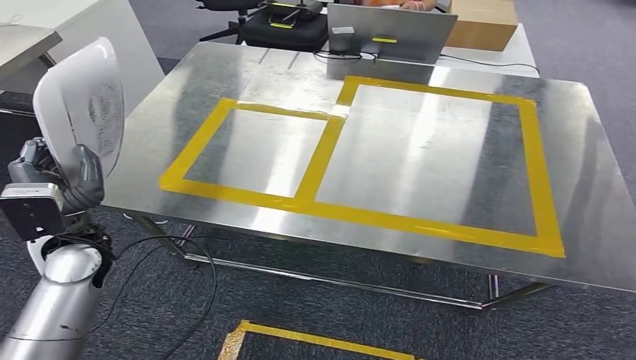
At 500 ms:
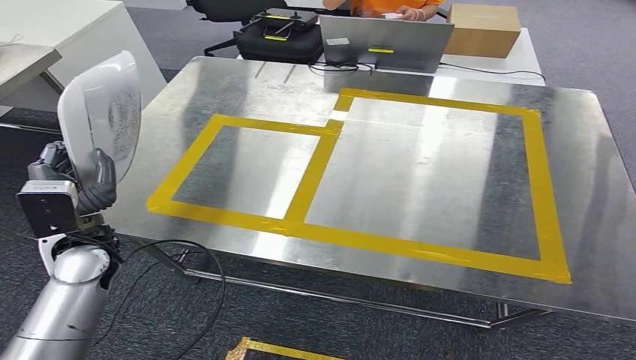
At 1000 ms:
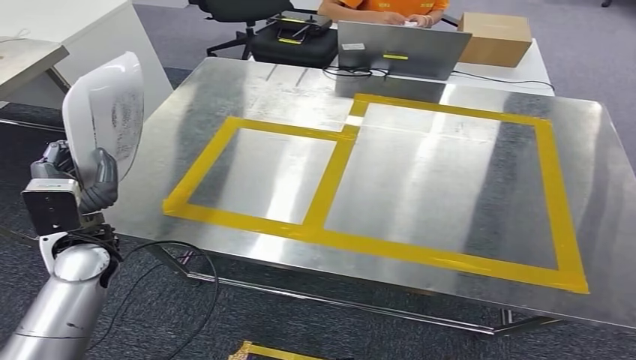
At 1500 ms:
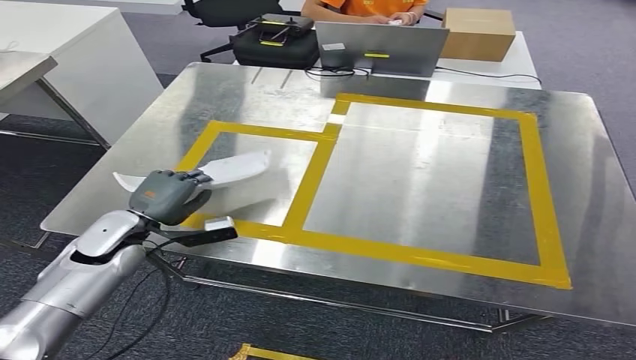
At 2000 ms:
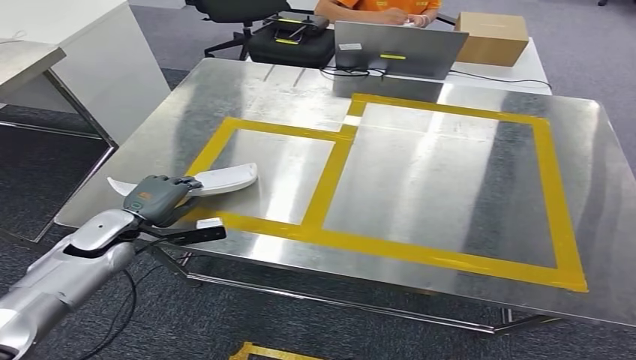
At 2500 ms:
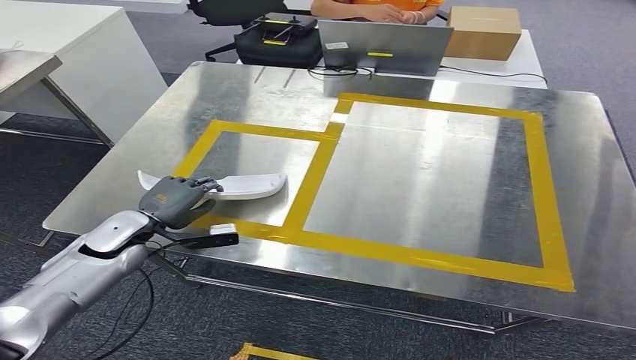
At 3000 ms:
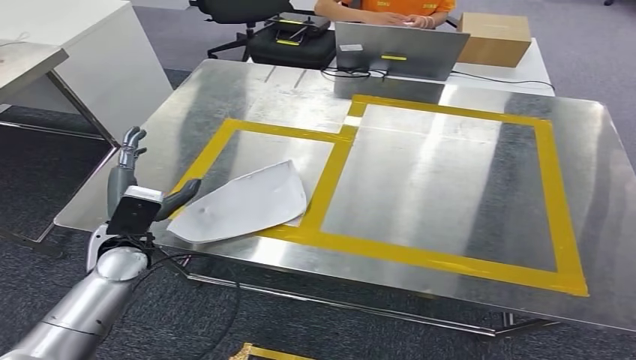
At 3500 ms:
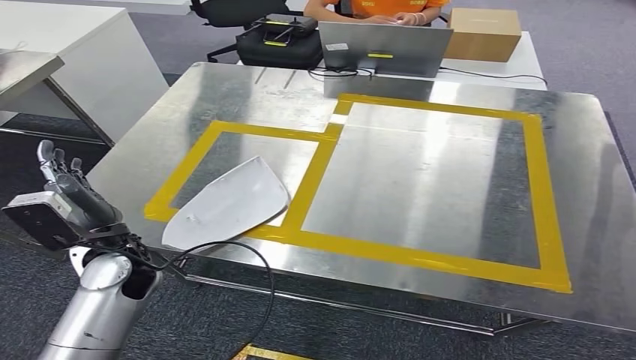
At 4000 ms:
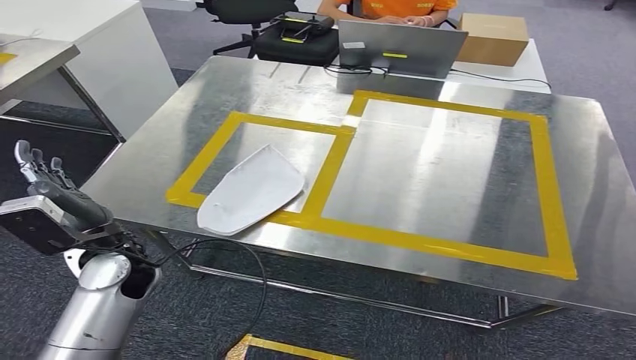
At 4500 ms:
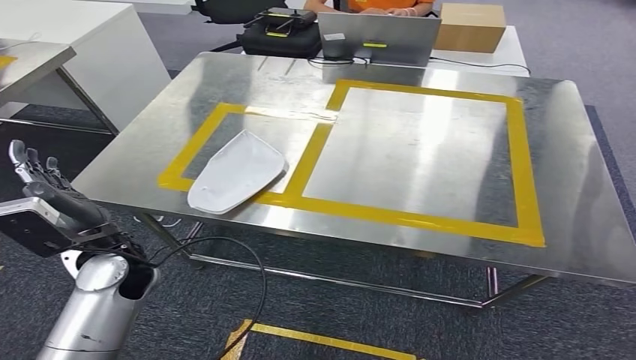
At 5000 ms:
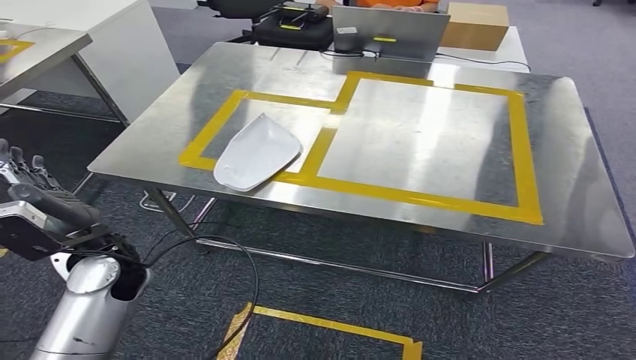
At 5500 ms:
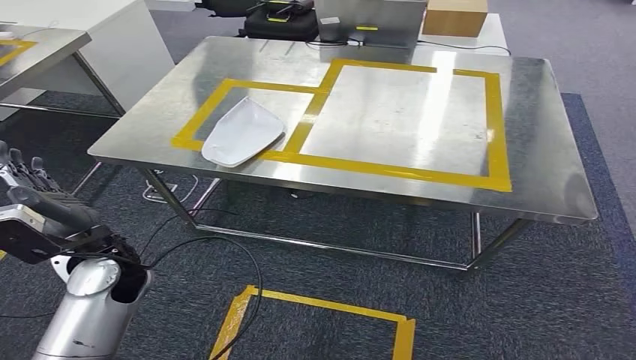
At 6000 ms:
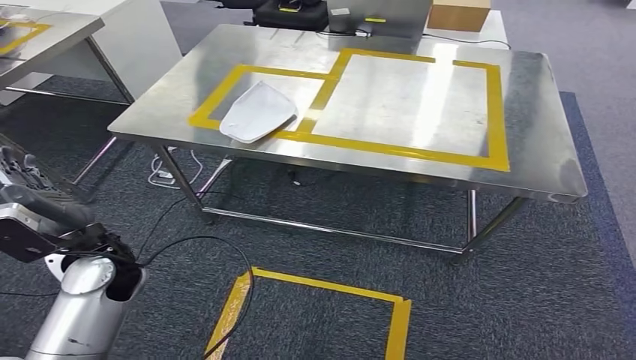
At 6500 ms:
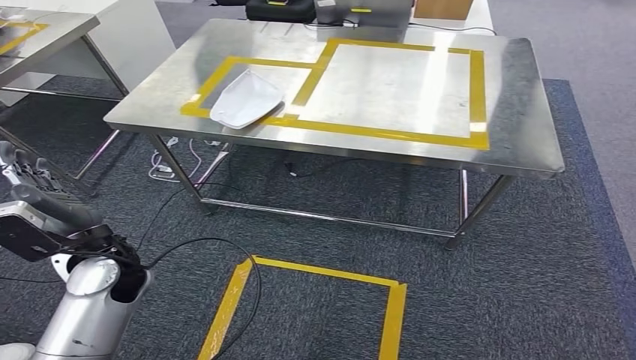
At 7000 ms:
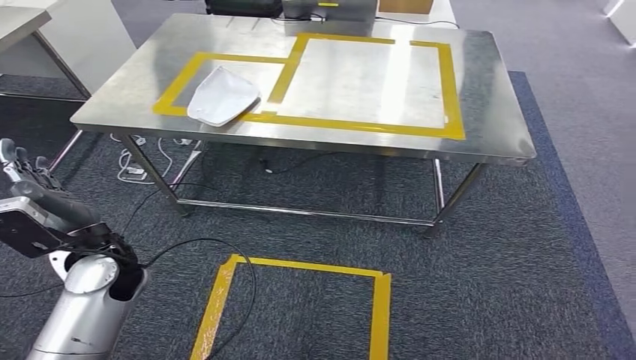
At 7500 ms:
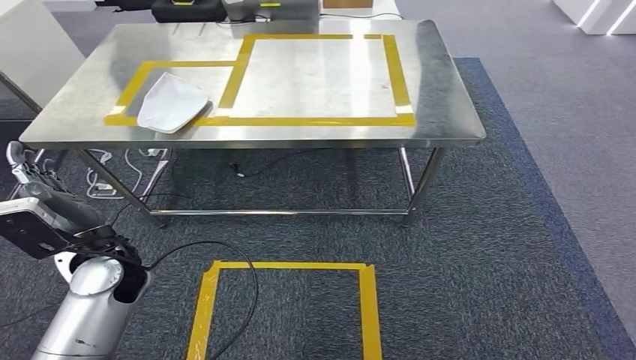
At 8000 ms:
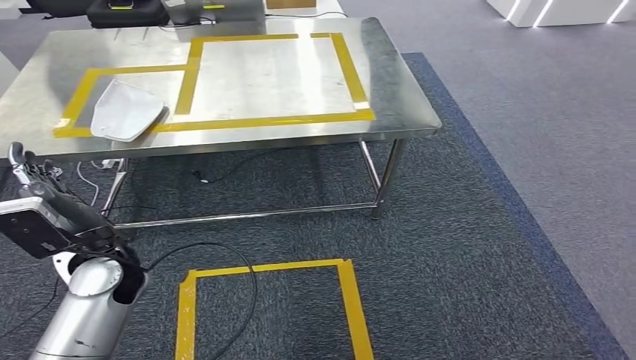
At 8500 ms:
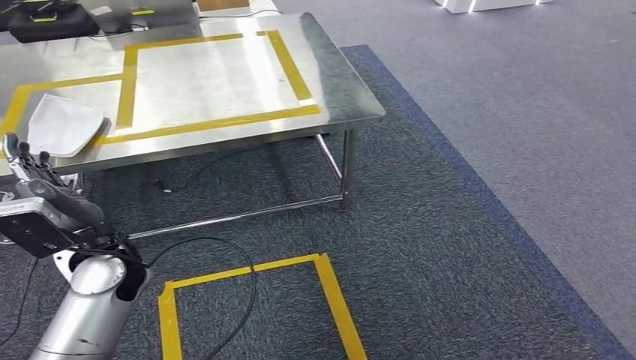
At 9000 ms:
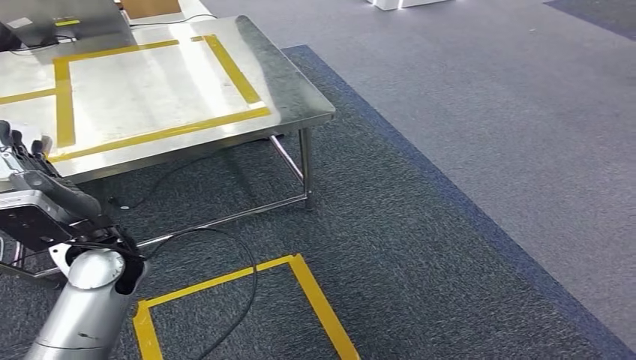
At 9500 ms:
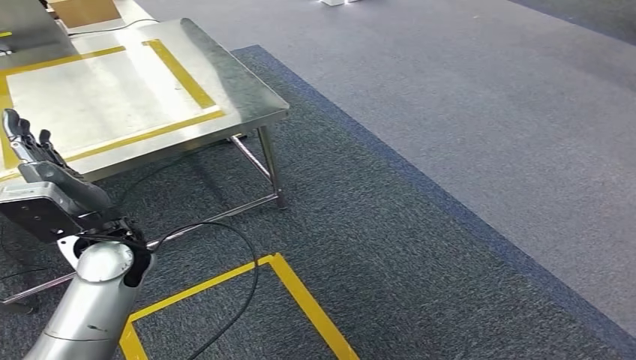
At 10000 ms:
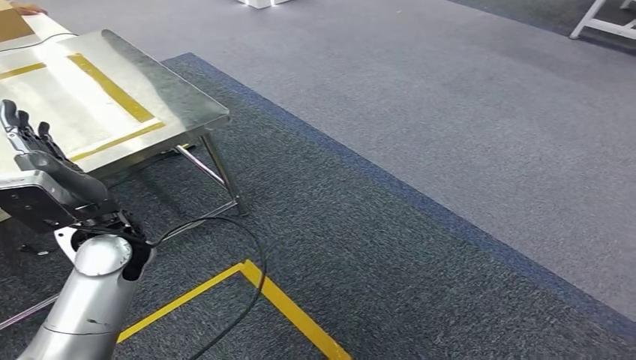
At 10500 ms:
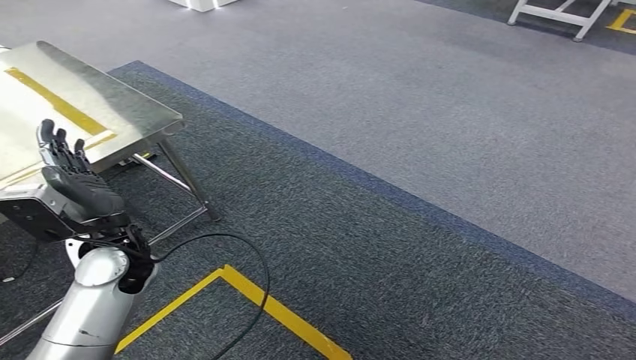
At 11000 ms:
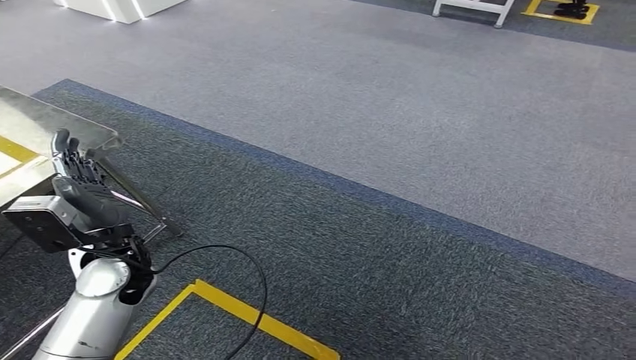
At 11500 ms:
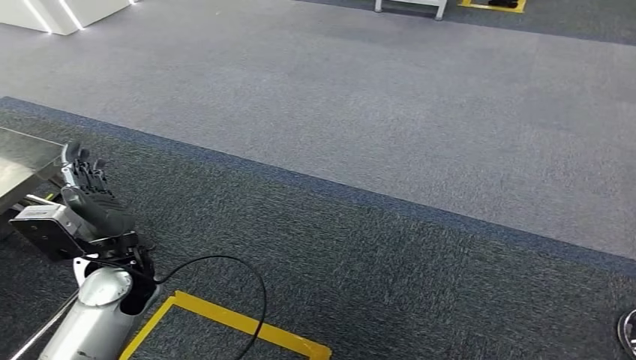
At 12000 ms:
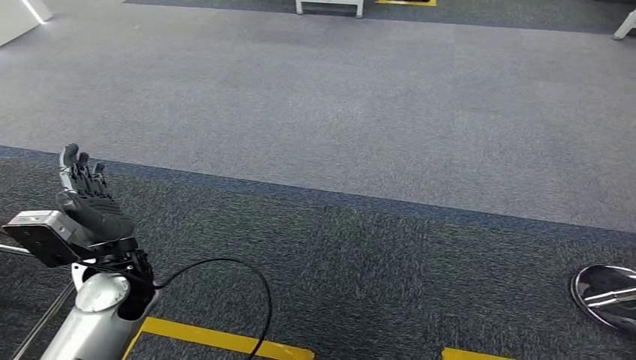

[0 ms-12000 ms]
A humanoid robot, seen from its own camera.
Step, 0 ms to 6000 ms: Insert the small component into the corresponding slot on the workbench.

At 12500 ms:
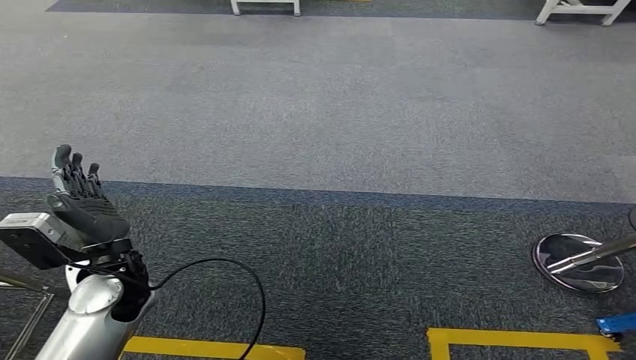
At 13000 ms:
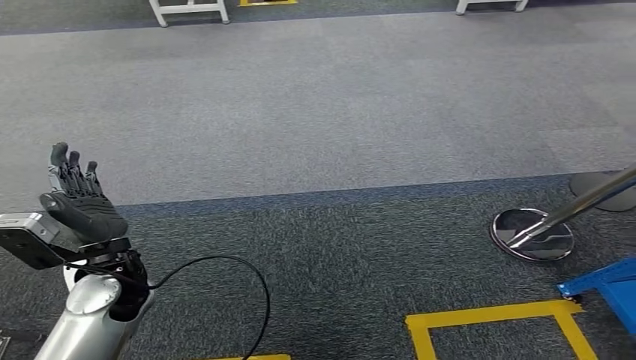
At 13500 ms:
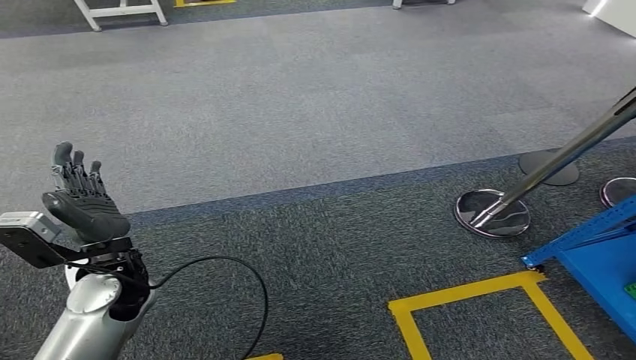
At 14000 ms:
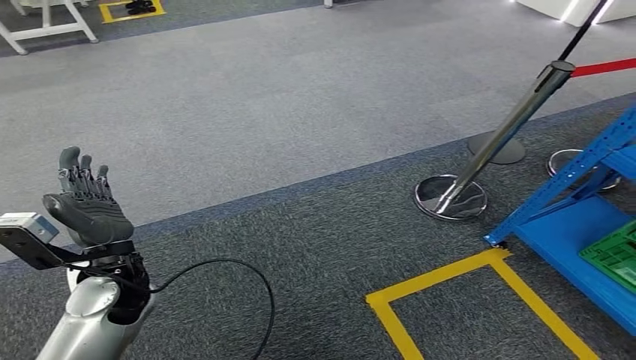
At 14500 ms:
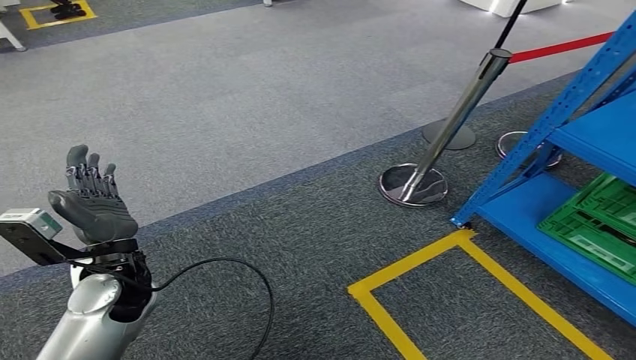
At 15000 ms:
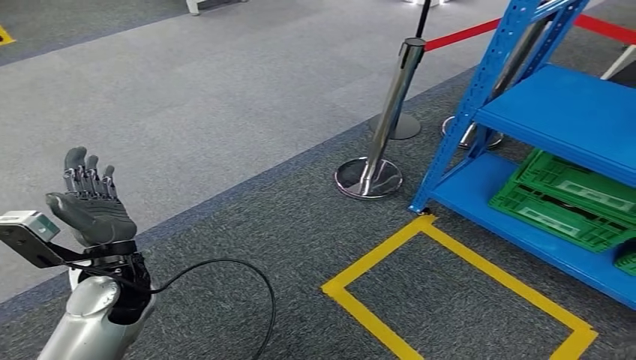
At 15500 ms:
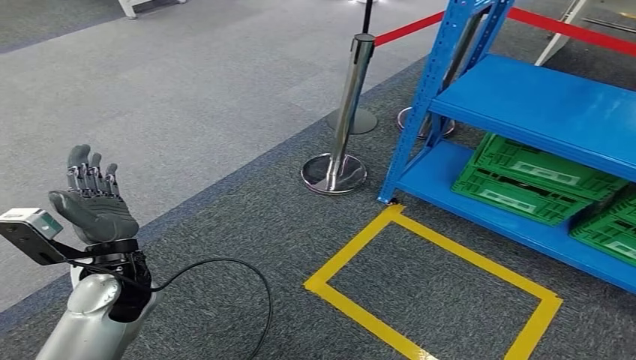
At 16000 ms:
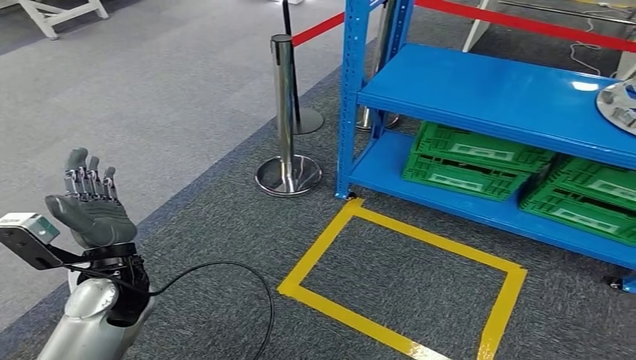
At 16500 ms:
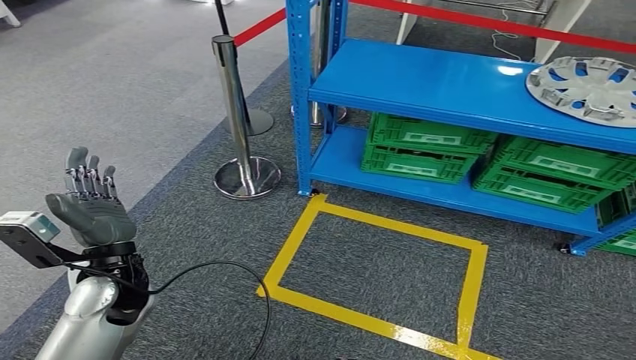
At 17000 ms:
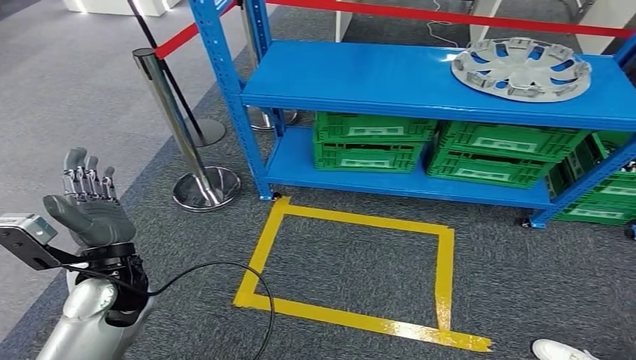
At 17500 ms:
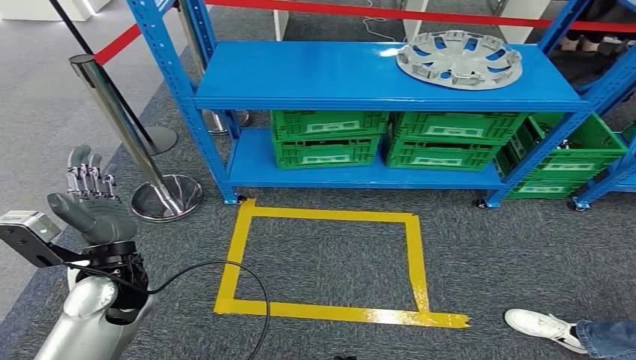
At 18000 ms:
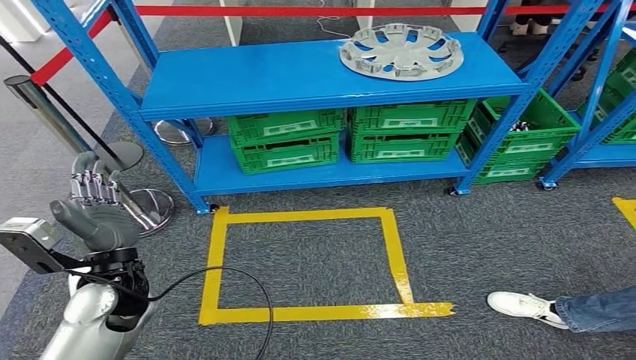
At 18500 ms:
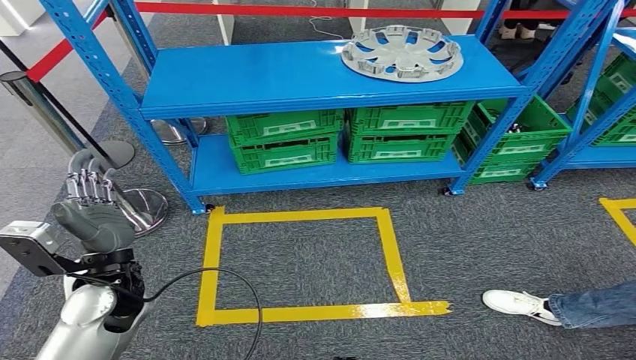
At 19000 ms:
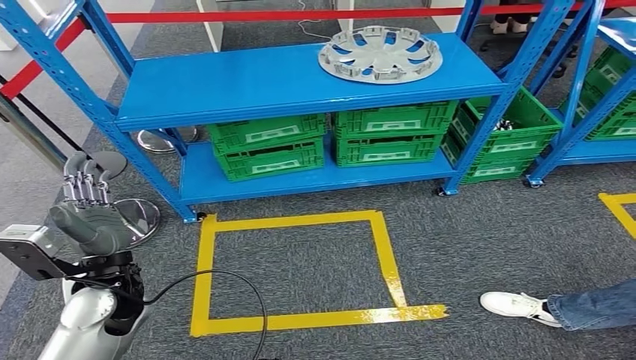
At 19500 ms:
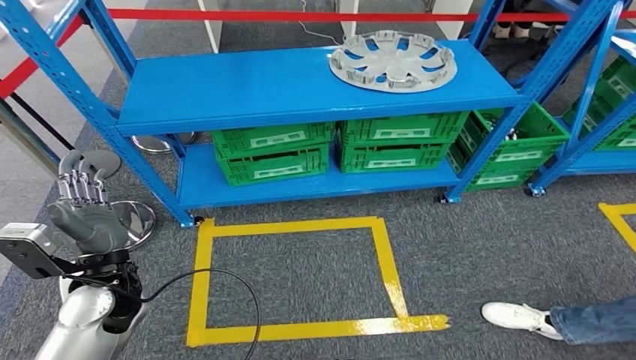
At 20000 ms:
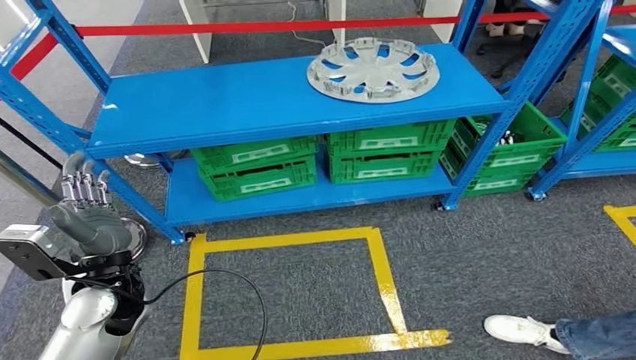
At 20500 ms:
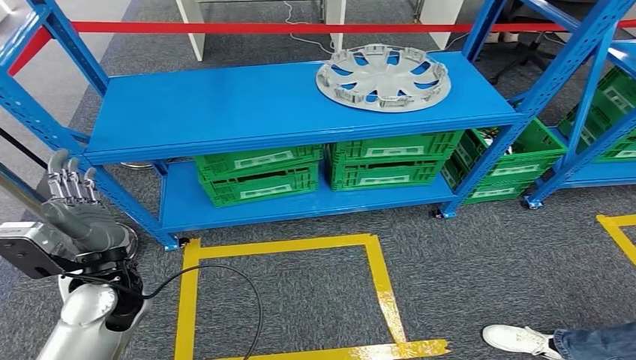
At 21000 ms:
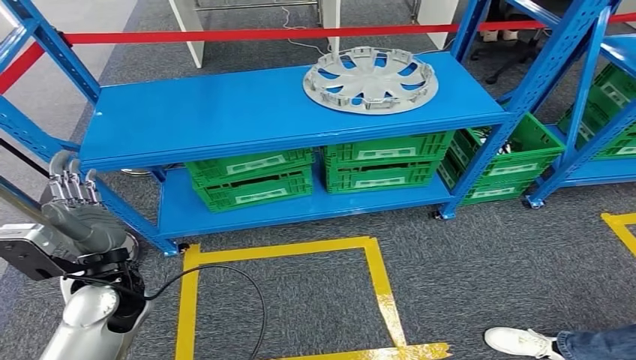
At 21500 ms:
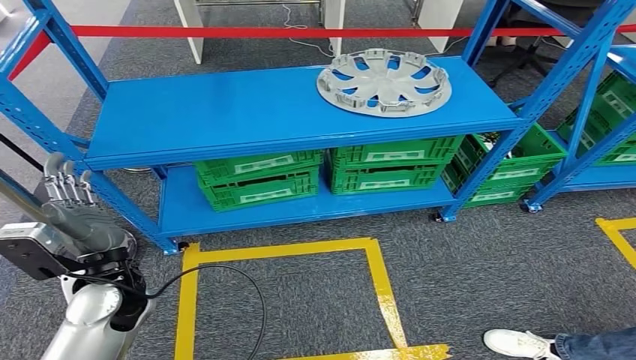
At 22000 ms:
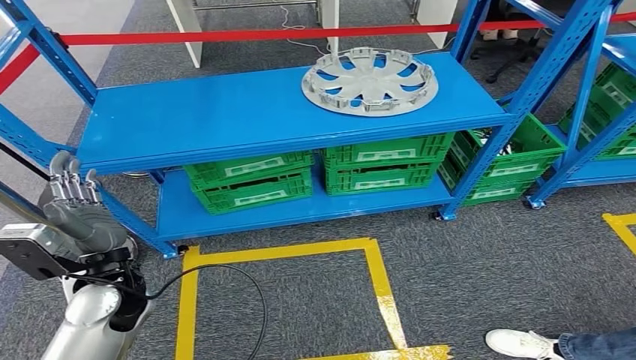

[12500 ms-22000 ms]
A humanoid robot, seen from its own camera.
Step, 12500 ms to 22000 ms: Move to the initial position at the workbench.
